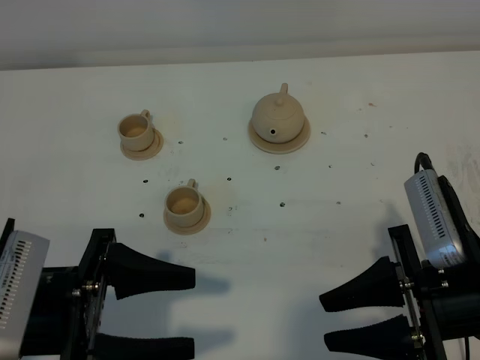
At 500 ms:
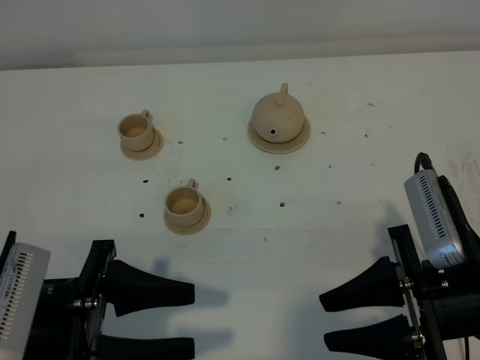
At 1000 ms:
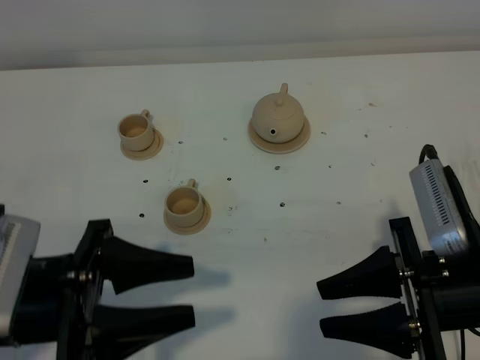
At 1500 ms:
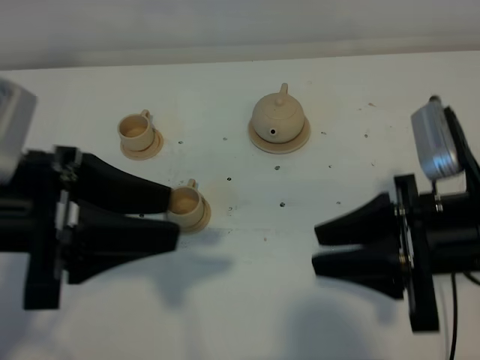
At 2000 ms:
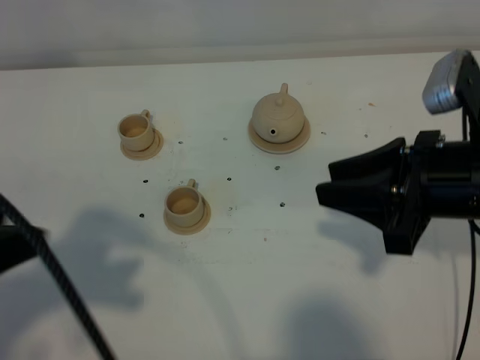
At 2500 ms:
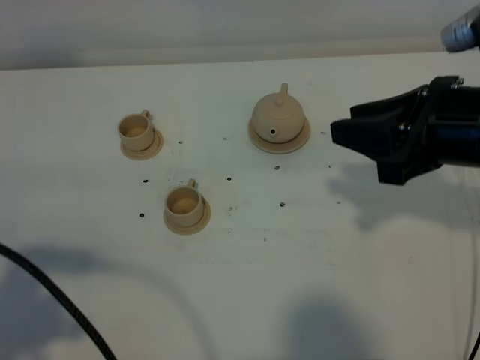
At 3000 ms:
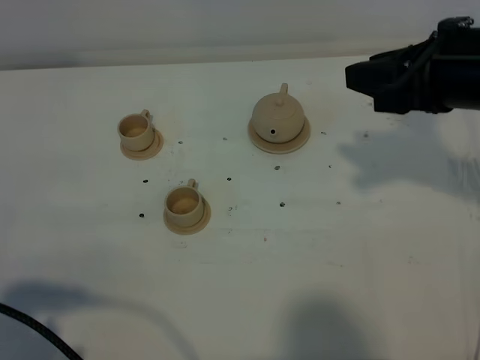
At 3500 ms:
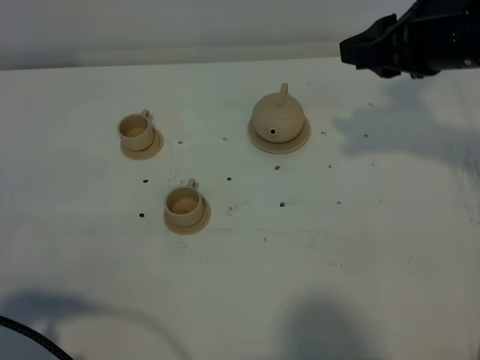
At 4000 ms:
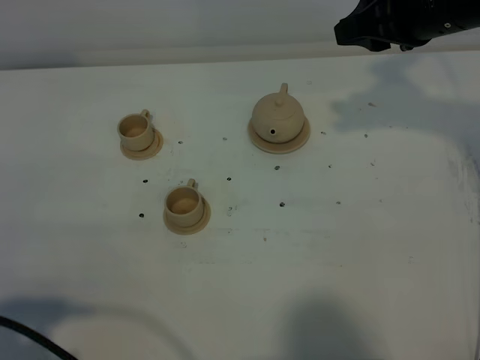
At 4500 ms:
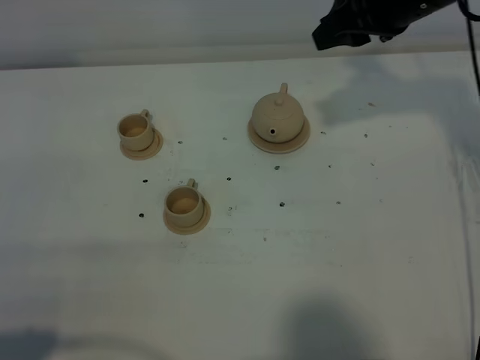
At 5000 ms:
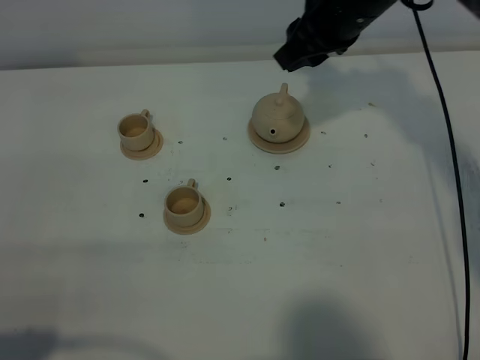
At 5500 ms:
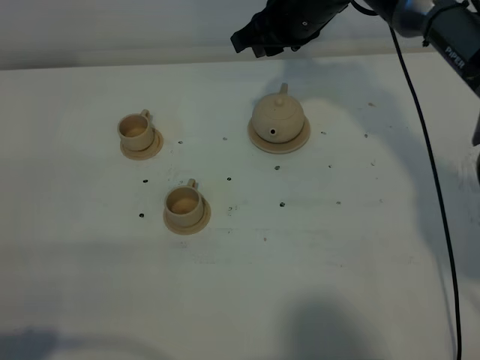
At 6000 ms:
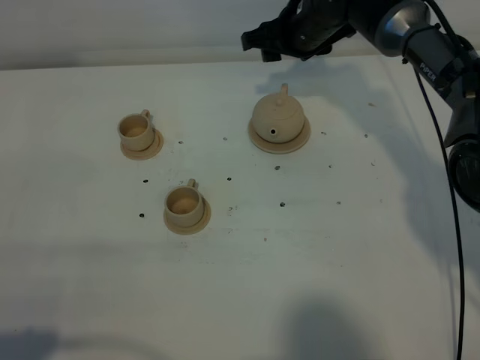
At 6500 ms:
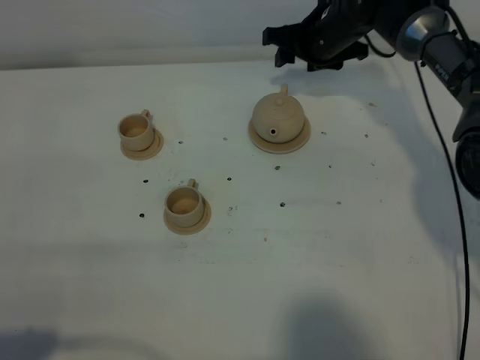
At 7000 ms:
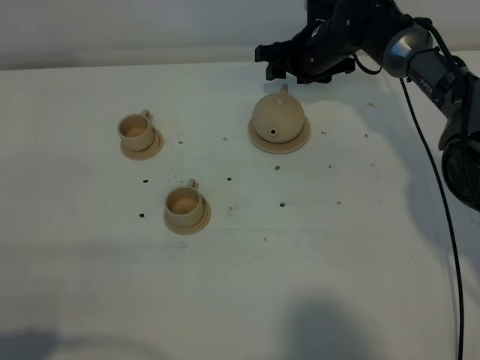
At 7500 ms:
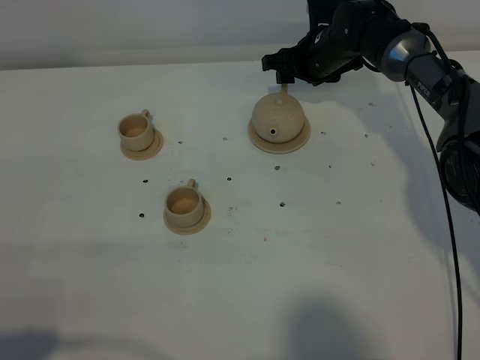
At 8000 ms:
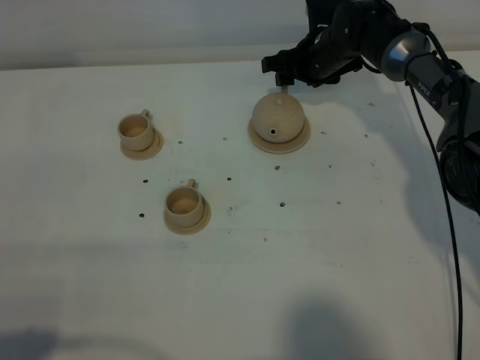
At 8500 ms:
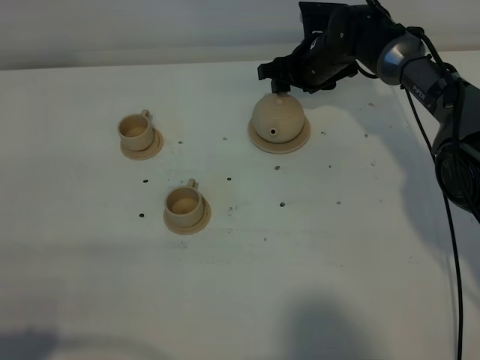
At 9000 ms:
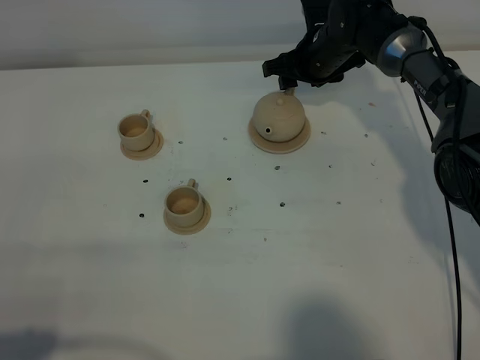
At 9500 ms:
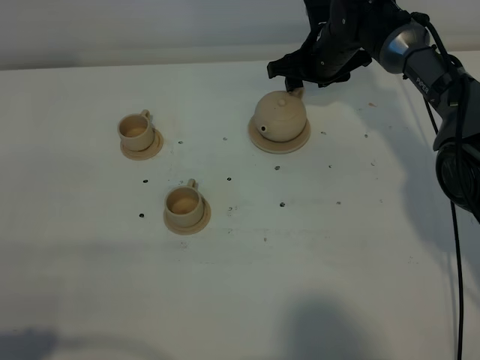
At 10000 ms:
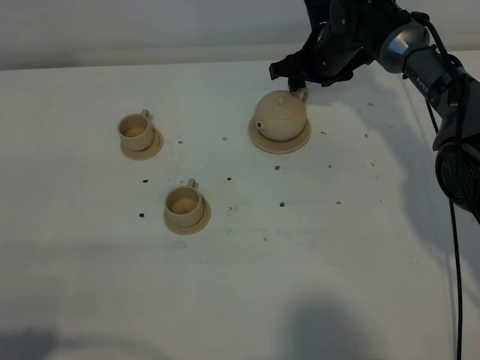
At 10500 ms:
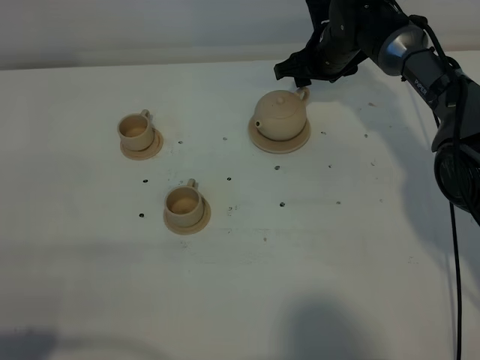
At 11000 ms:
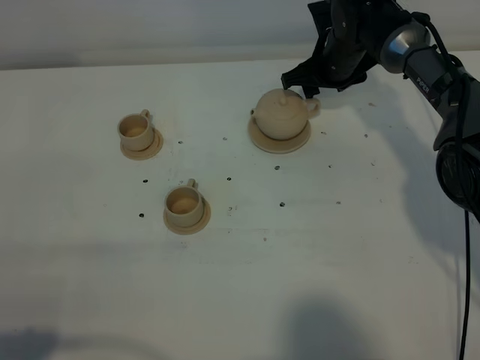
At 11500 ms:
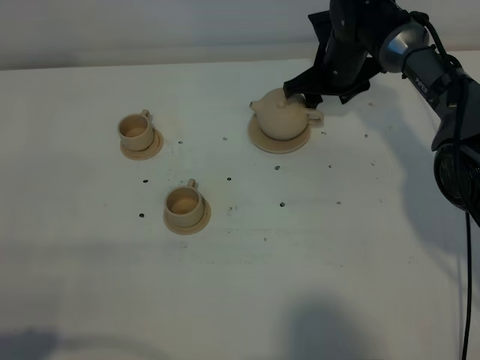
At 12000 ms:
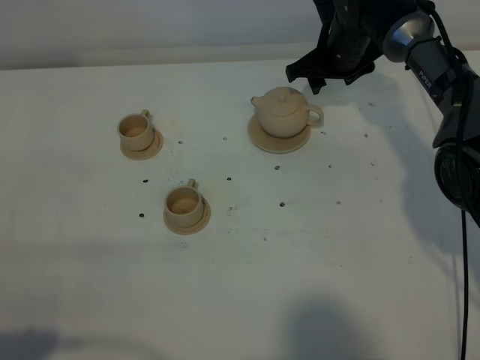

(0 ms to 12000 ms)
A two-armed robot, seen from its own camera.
Task of the whole recording: grasp the brown teapot and pour the tea into the two brown teacups one by one, put the brown teapot back in its original place.
0 ms - 2000 ms: The right gripper is displaced forward and upward by some 10 cm, while the left gripper travels upward by some 15 cm.
2000 ms - 4000 ms: The left gripper heads downward, backward and to the left, covering approximately 15 cm, while the right gripper is displaced forward by some 15 cm.
4000 ms - 6000 ms: The right gripper goes about 20 cm forward, downward and to the left, and opens.
6000 ms - 8000 ms: The right gripper travels downward by approximately 10 cm.
8000 ms - 10000 ms: The grippers make only small movements.
10000 ms - 12000 ms: There are only small adjustments of the grippers.

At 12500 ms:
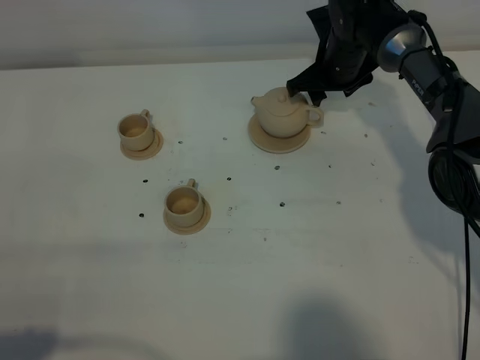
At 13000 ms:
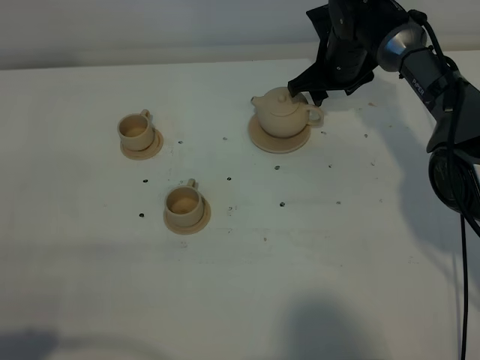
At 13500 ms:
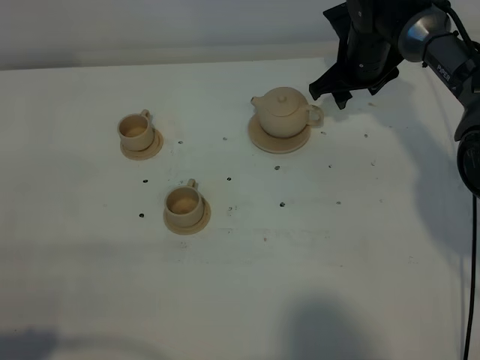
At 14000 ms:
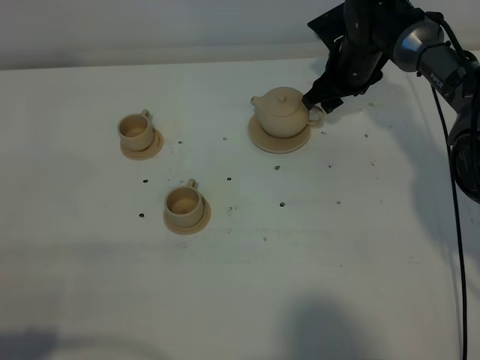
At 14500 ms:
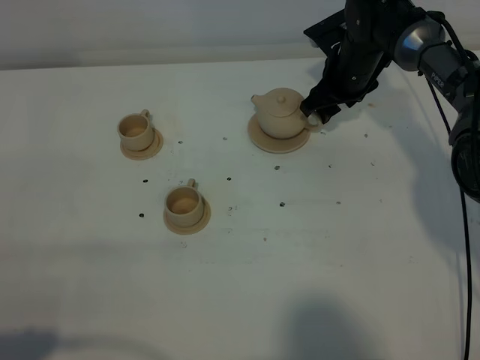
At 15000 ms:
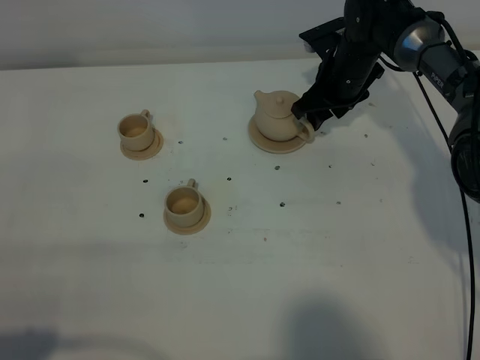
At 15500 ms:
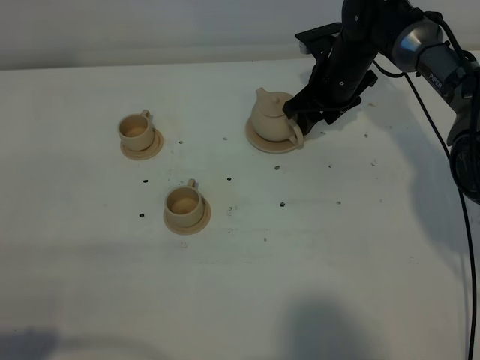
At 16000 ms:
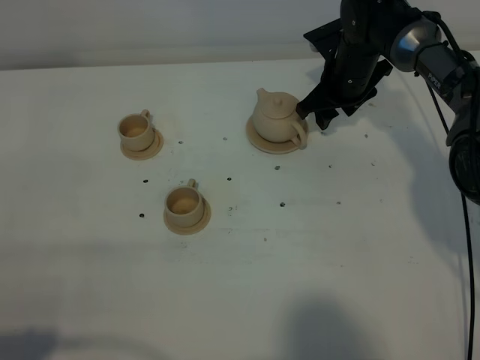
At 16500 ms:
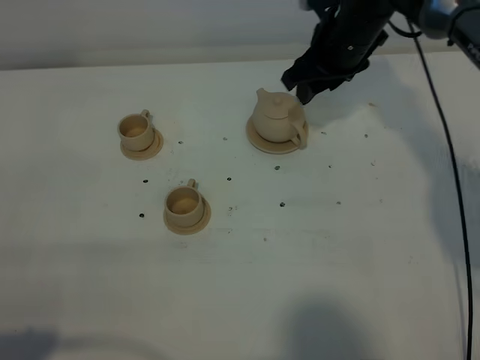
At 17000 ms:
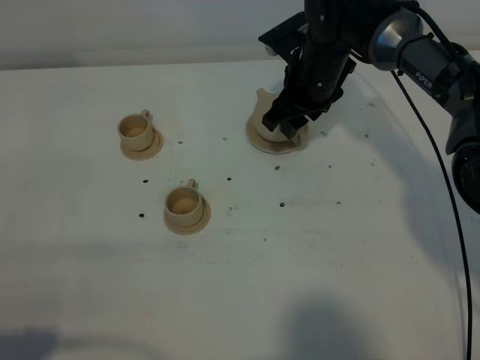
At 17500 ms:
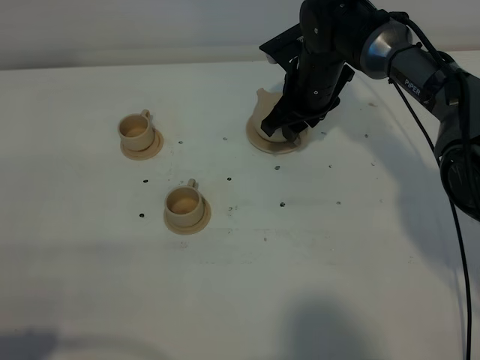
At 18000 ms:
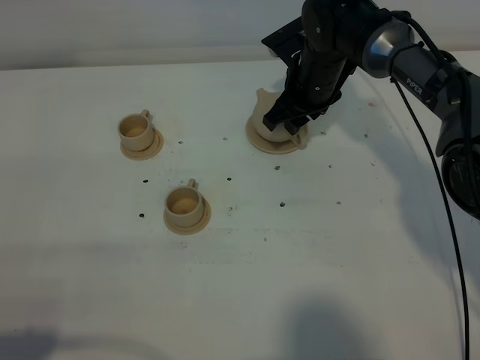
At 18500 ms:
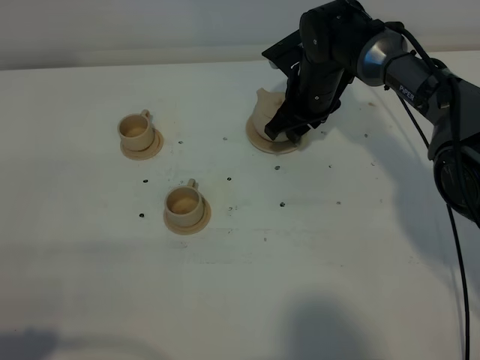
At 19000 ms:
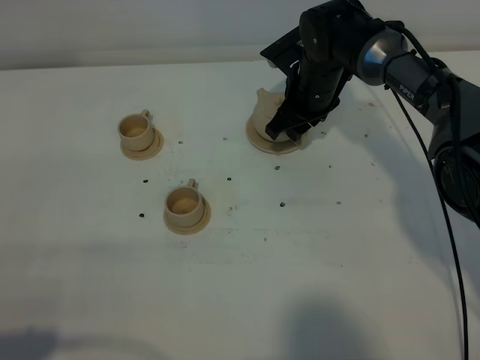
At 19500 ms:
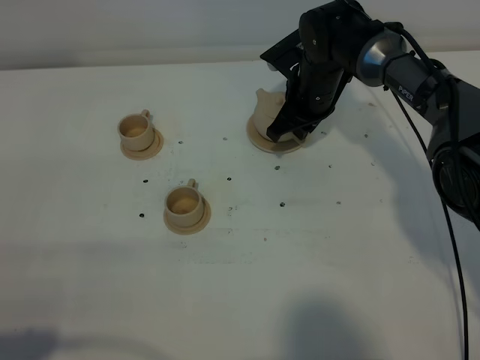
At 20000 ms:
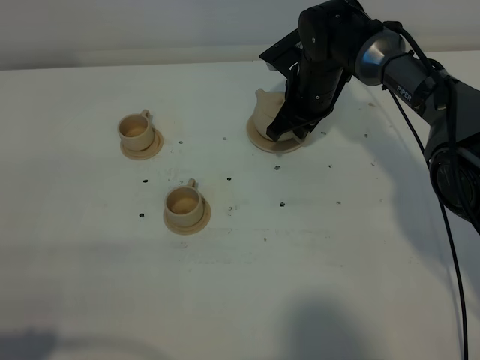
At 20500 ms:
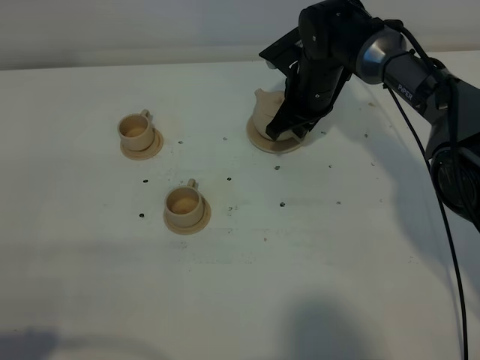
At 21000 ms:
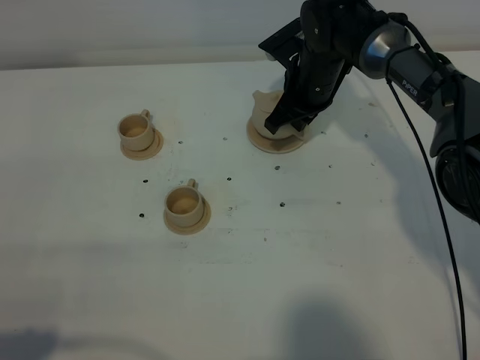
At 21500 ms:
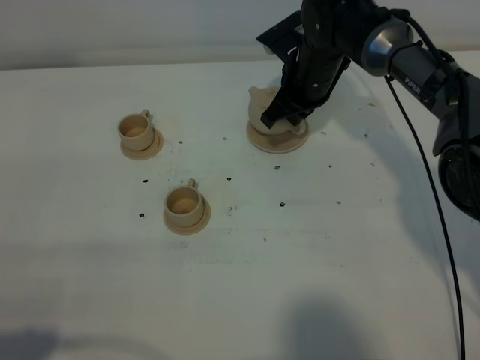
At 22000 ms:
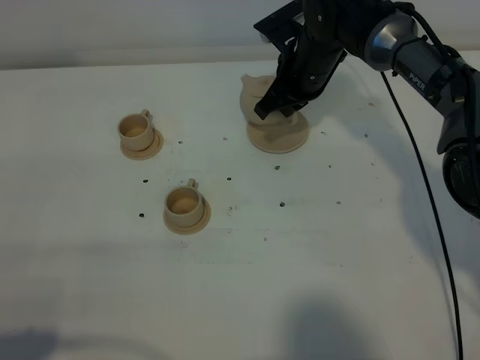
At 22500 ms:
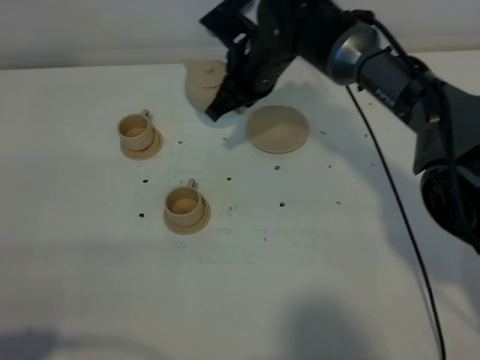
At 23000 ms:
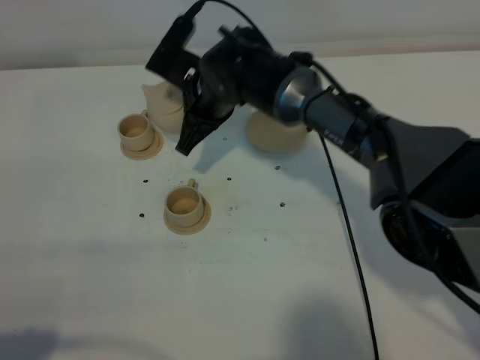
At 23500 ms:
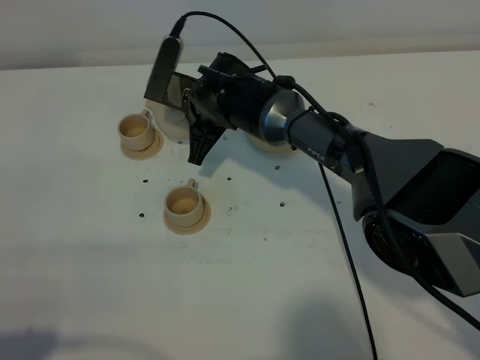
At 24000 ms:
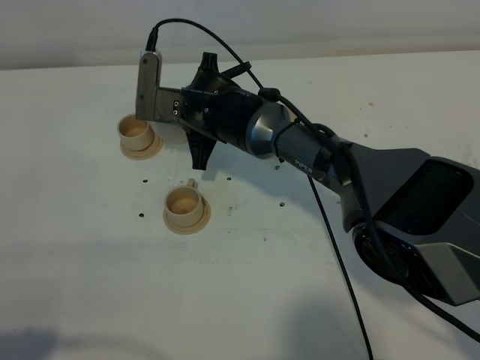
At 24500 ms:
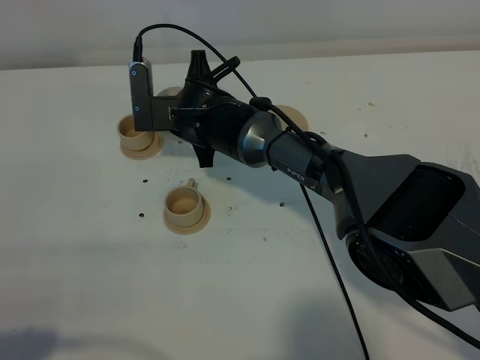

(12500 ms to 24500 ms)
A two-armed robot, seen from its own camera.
Task of the whole recording: grasp the brown teapot and pour the tea into the two brown teacups one by one, put the brown teapot back in its original place.
Step, 12500 ms - 21500 ms: Pick up the teapot with the right gripper.
12500 ms - 14500 ms: The grippers move only a little.
14500 ms - 16500 ms: The right gripper is displaced upward by about 10 cm.
16500 ms - 18500 ms: The right gripper shifts approximately 10 cm downward.
18500 ms - 20500 ms: The right gripper closes up.
20500 ms - 22500 ms: The right gripper moves to the left and upward, about 10 cm.
22500 ms - 24500 ms: The right gripper shifts some 10 cm to the left and downward.

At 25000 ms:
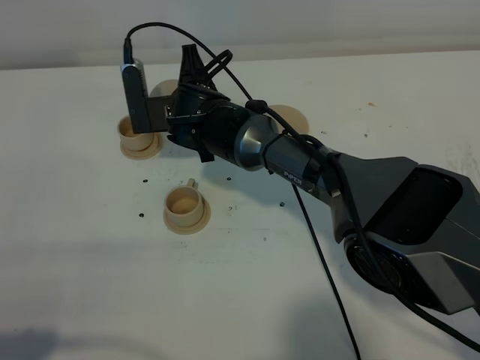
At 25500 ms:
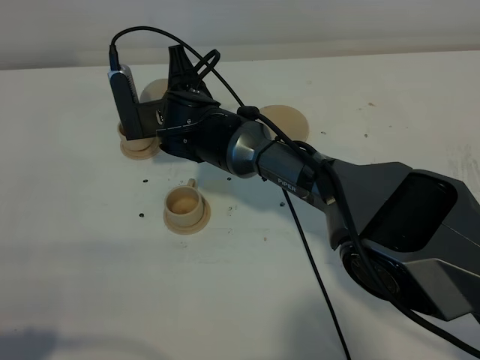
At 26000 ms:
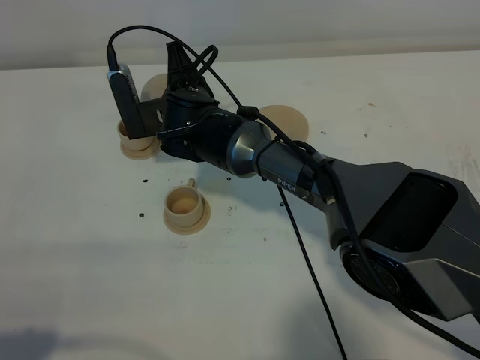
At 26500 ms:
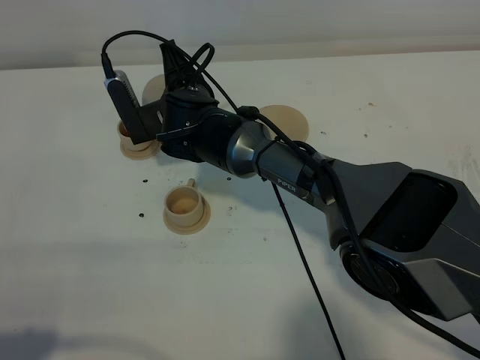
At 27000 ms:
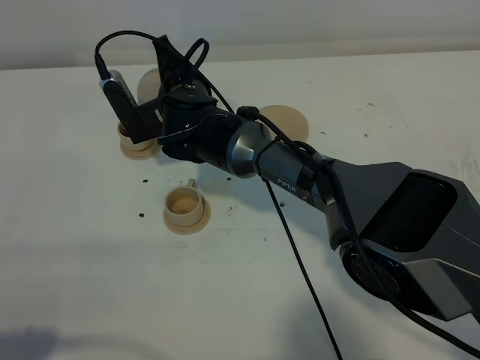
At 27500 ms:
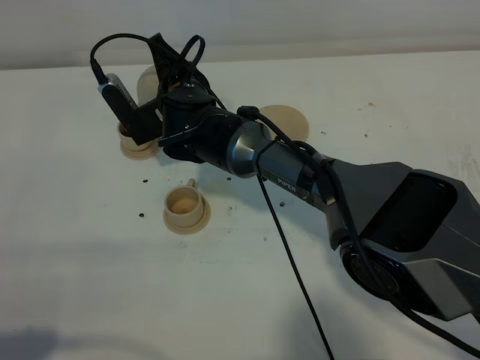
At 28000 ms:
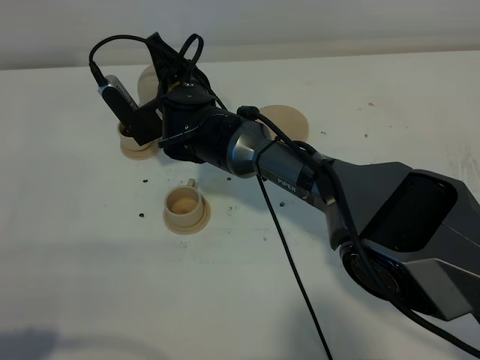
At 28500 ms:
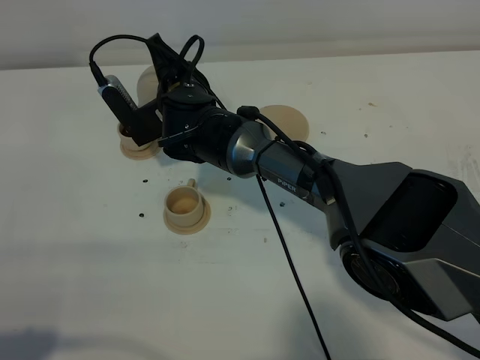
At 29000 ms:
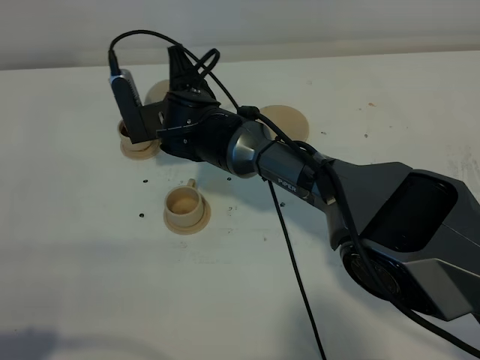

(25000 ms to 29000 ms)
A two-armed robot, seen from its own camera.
Task of the whole recording: grasp the brown teapot and pour the tea into the two brown teacups one by one, put the brown teapot back in its original place.
25000 ms - 27000 ms: There are only small adjustments of the grippers.
27000 ms - 29000 ms: There are only small adjustments of the grippers.
